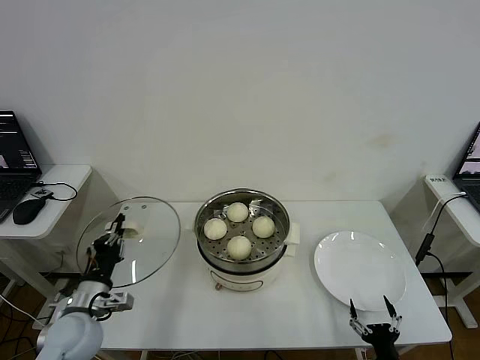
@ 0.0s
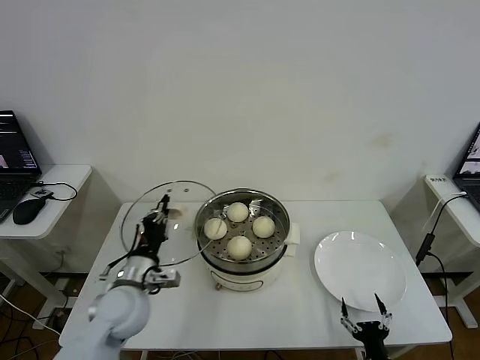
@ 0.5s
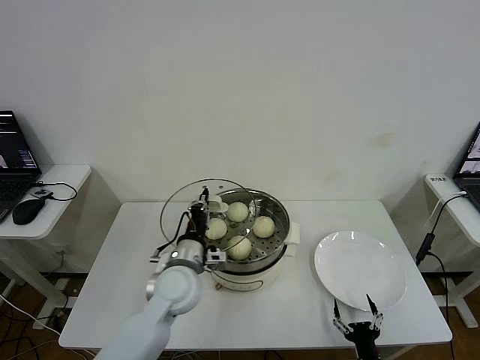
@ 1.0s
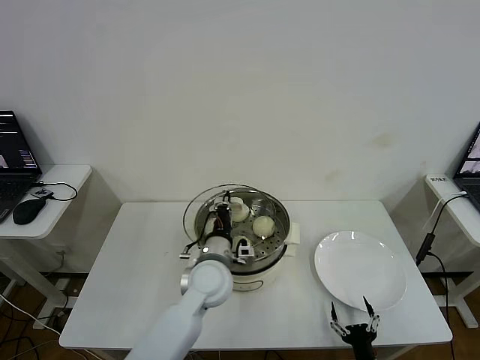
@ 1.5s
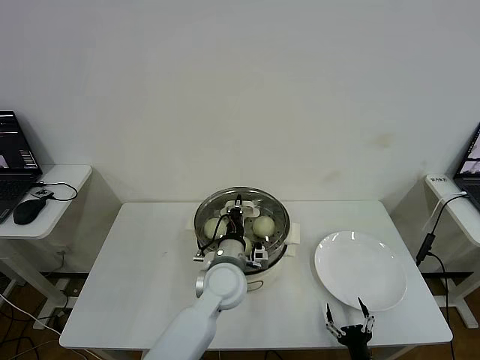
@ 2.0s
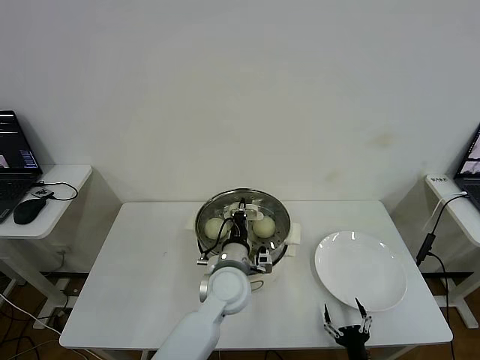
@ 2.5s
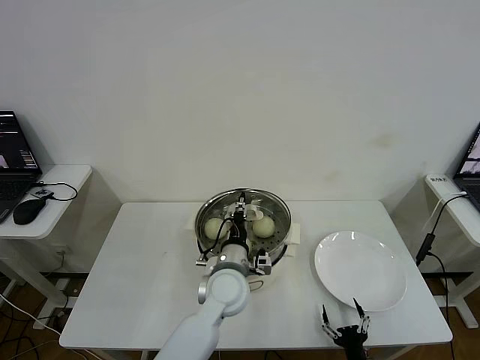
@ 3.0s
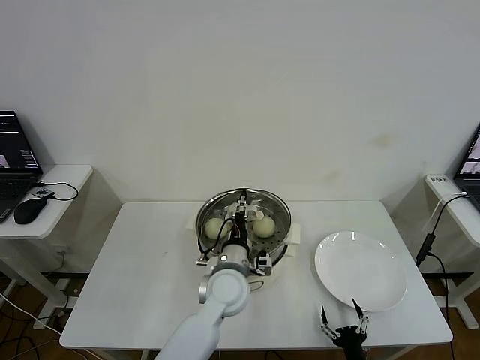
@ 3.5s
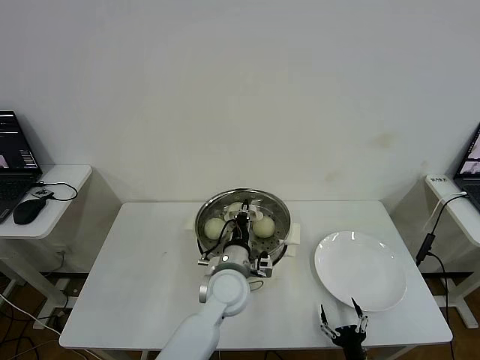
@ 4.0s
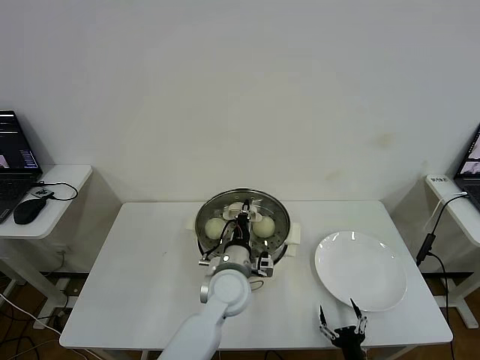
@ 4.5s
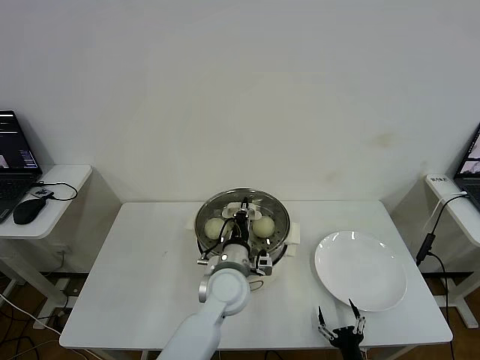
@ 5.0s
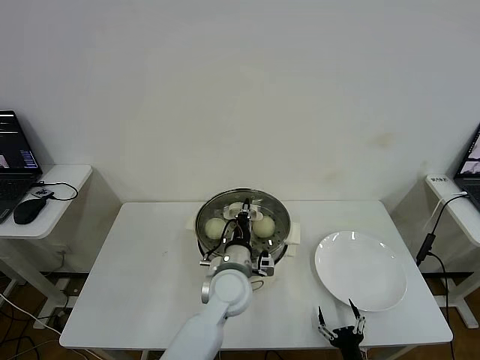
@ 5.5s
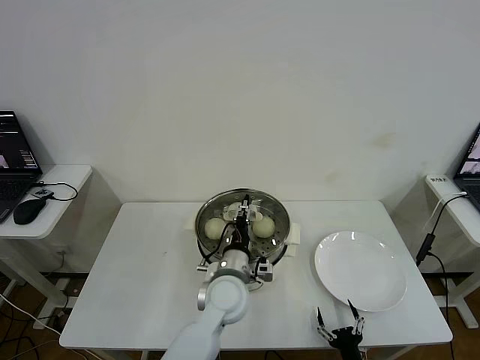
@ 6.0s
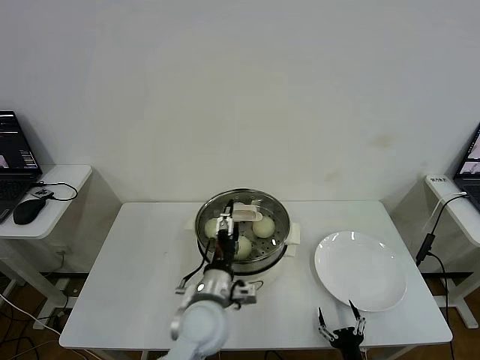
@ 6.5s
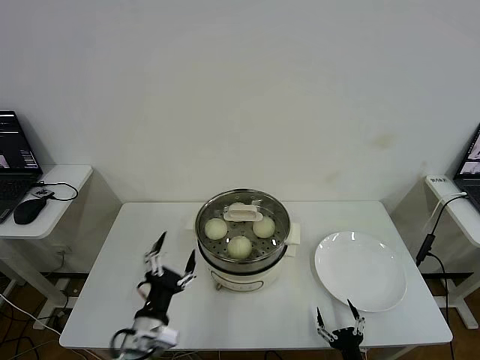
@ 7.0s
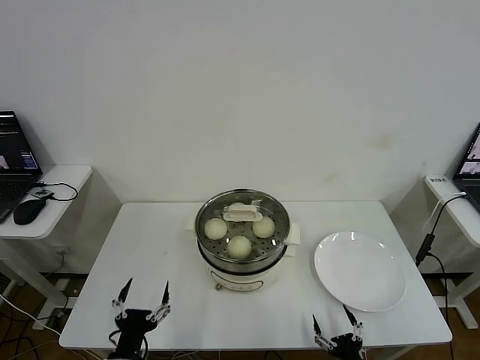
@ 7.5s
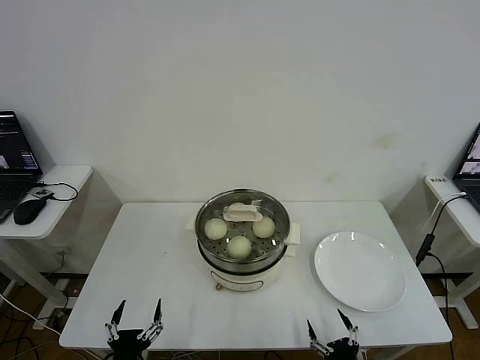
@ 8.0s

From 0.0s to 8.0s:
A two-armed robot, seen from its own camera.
Step, from 0.0s to 6.5s: Place the pot lid on the steamer with left gripper.
From 0.0s to 2.0s: The left gripper travels to the right by about 30 cm; the right gripper changes place by some 5 cm.
From 2.0s to 4.0s: The left gripper opens, then closes once more.
From 4.0s to 6.0s: The two grippers keep their place.
From 6.0s to 8.0s: The left gripper travels backward and to the left by approximately 35 cm, and opens, while the right gripper shifts approximately 5 cm upward.
